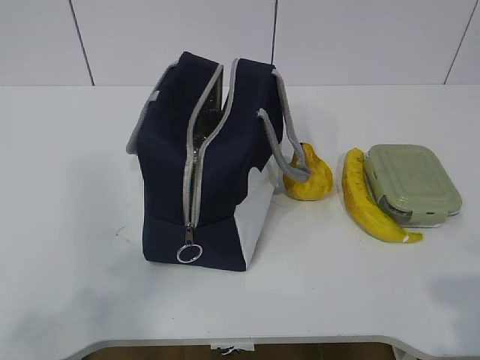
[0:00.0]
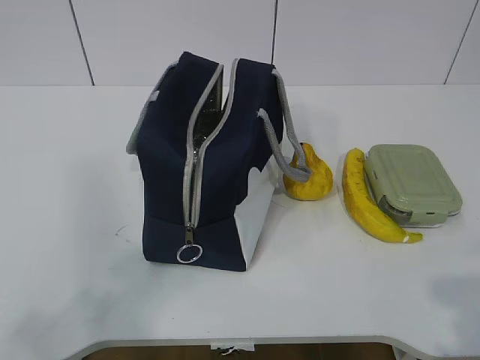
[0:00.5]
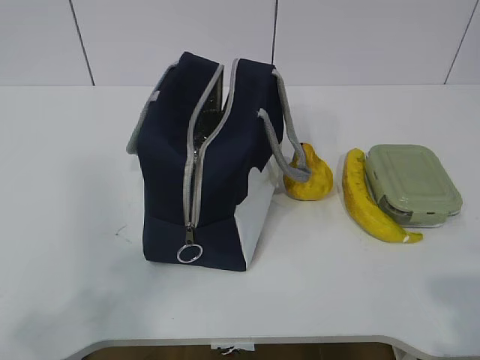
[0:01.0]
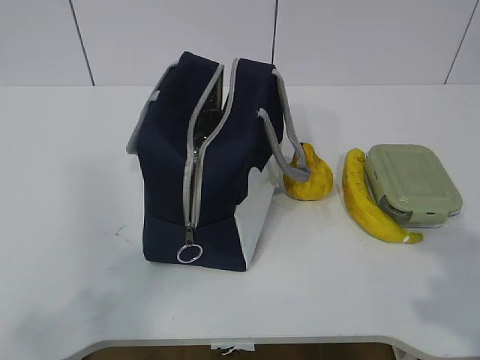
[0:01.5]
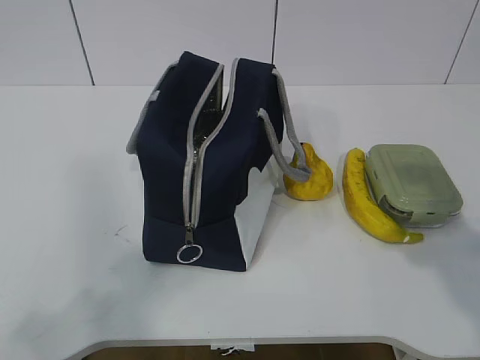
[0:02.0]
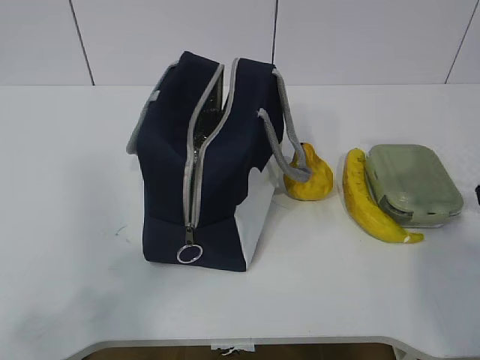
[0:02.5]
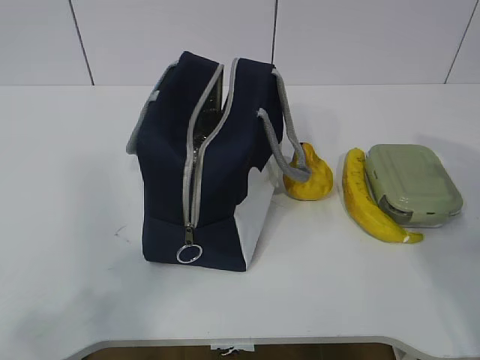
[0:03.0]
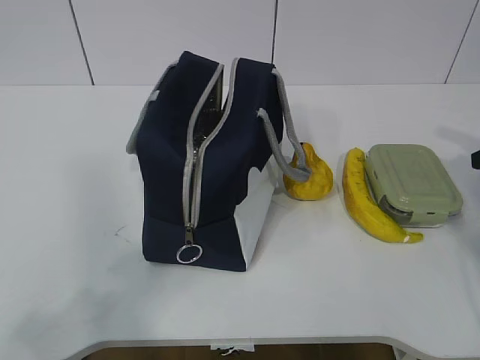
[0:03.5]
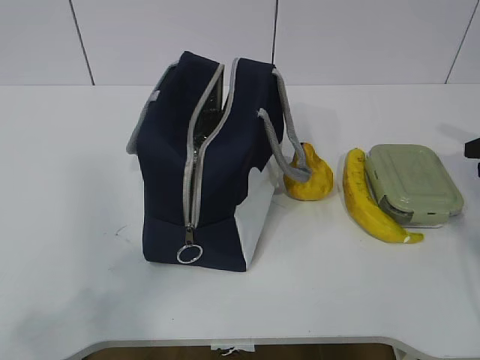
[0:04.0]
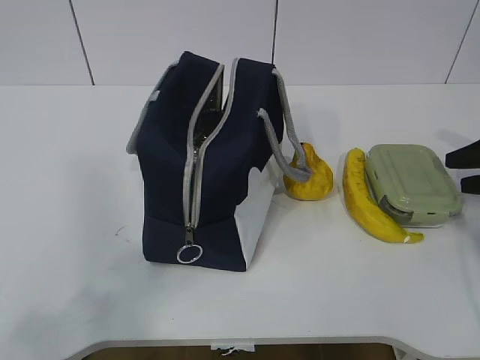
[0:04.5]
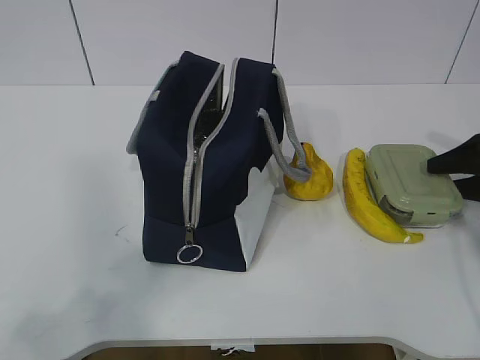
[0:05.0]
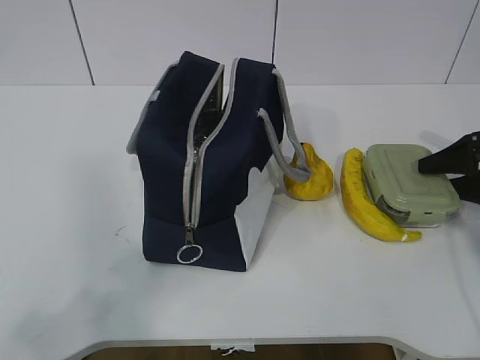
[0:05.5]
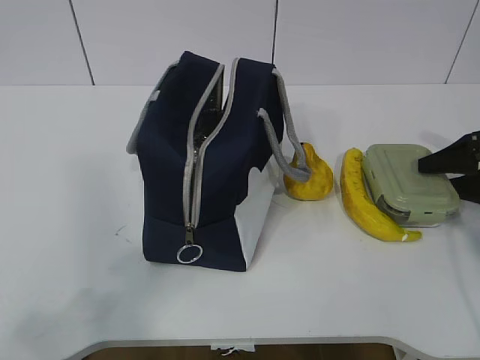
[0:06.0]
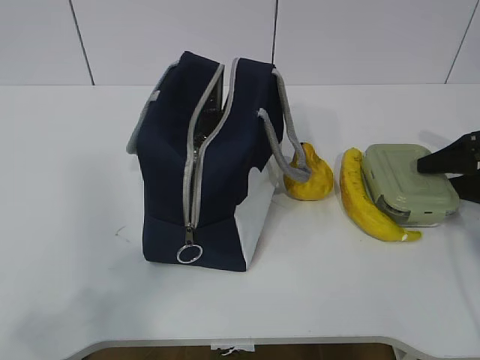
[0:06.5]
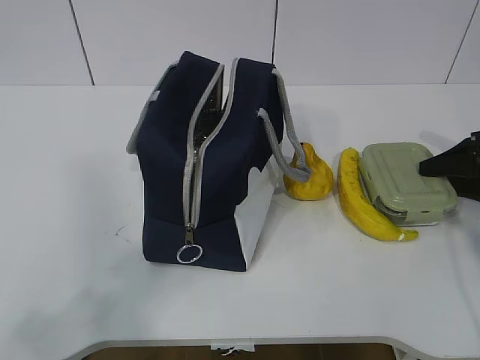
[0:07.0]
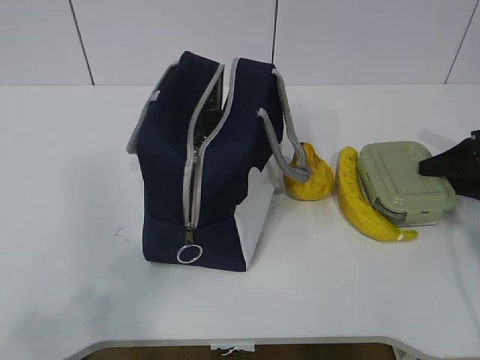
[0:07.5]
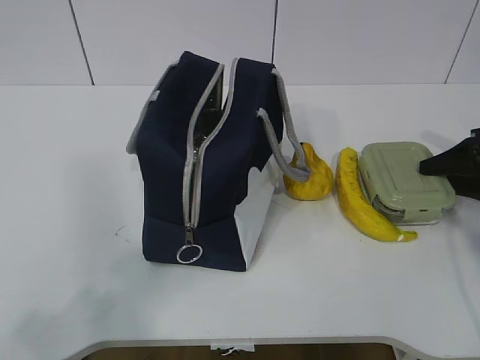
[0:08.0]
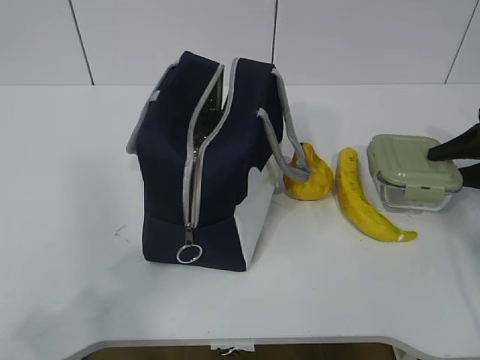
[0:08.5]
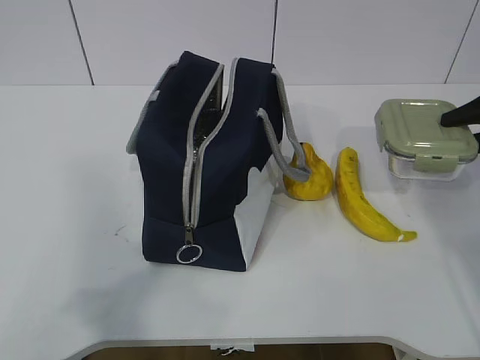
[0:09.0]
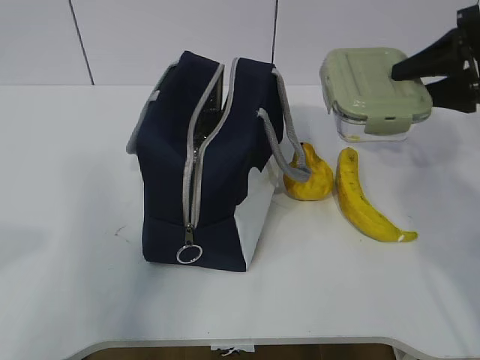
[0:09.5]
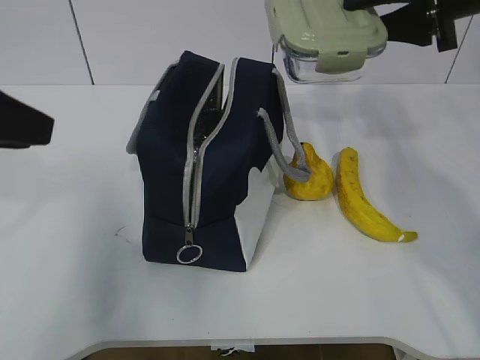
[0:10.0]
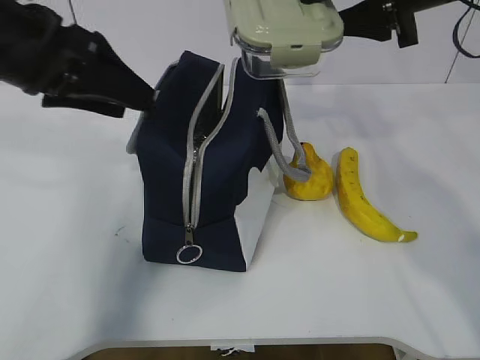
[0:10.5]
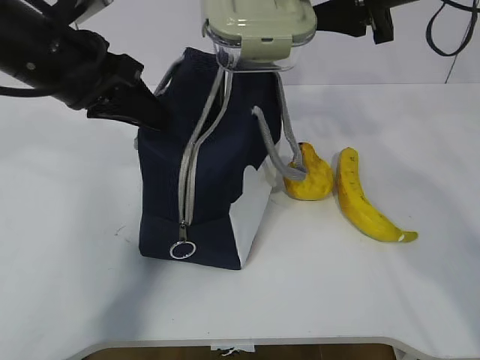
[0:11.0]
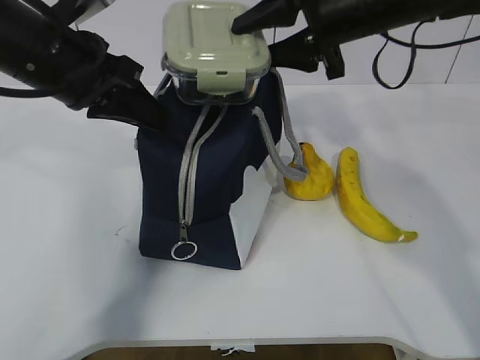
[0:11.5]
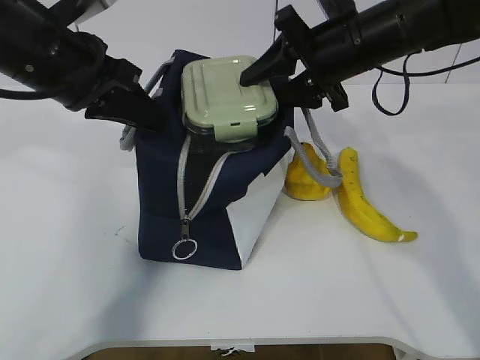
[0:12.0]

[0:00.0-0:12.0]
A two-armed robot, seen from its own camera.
Step, 0:00.0 to 0:06.5: Grab the lunch box with your right hand.
Step, 0:07.0 to 0:09.0: Grab the lunch bag with your left hand.
0:02.0 to 0:04.0: The right gripper moves forward, to the right and downward, approximately 30 cm.
0:04.0 to 0:06.0: The right gripper ends up about 5 cm from where it was.
0:06.0 to 0:08.0: Neither gripper changes place.
0:08.0 to 0:10.0: The right gripper heads upward and to the left, covering some 25 cm. The left gripper moves forward, approximately 20 cm.
0:10.0 to 0:12.0: The right gripper is displaced to the left and downward by approximately 15 cm, while the left gripper shifts approximately 15 cm forward and to the right, and closes up.

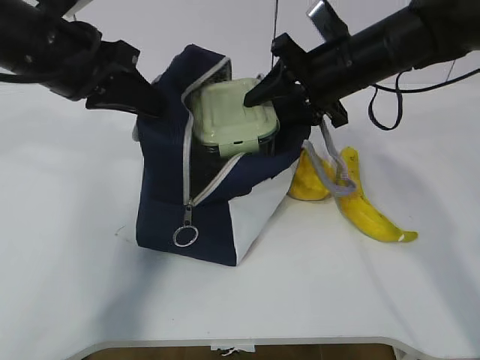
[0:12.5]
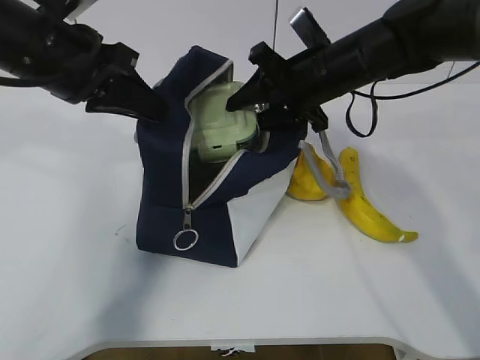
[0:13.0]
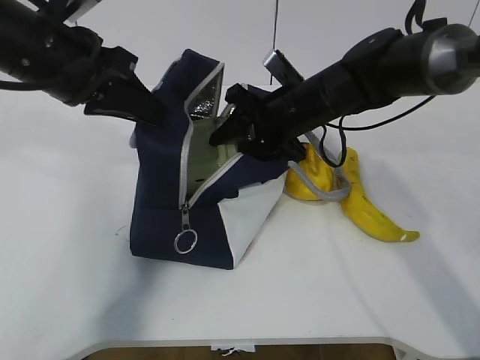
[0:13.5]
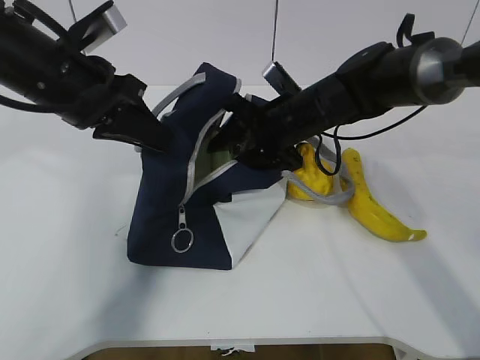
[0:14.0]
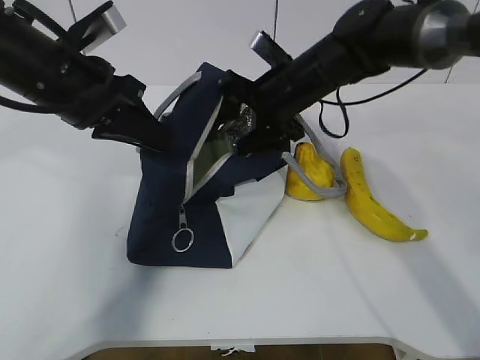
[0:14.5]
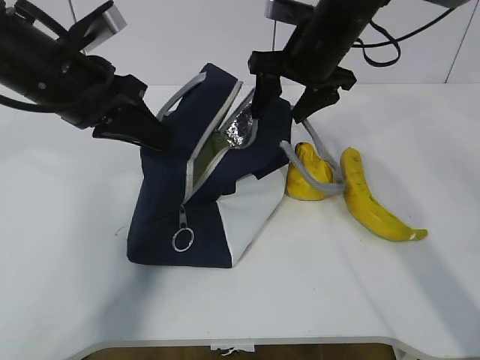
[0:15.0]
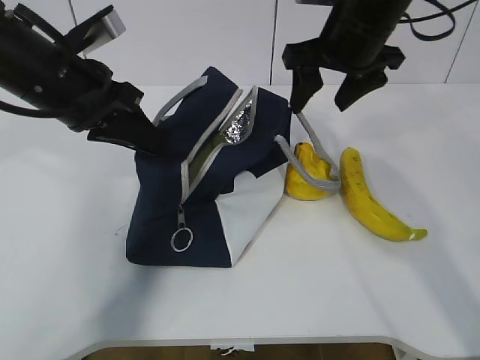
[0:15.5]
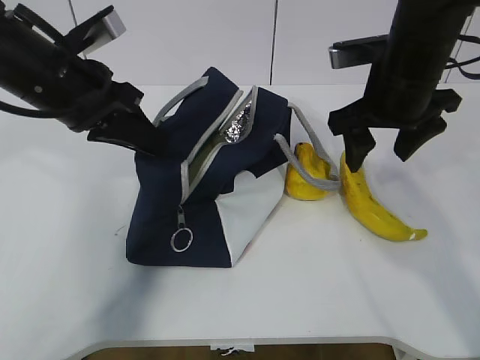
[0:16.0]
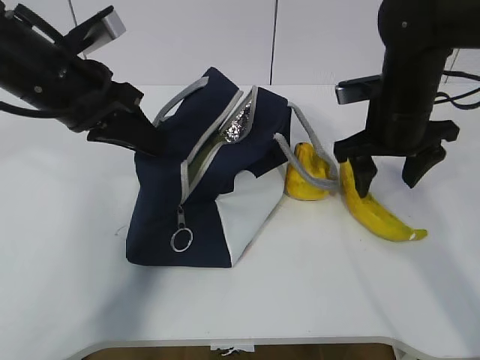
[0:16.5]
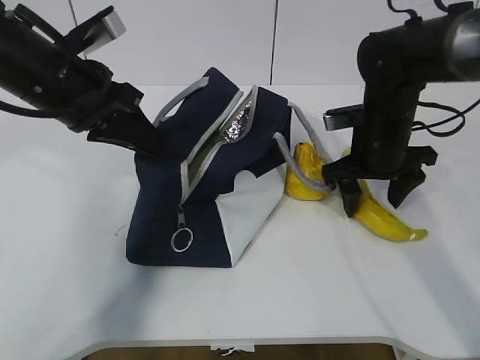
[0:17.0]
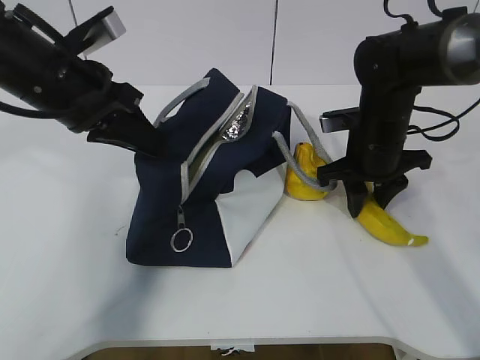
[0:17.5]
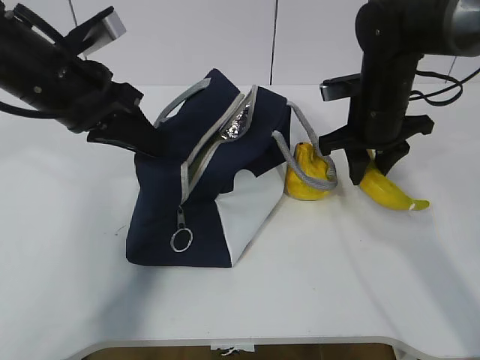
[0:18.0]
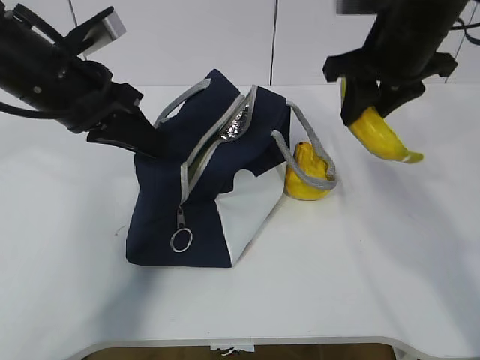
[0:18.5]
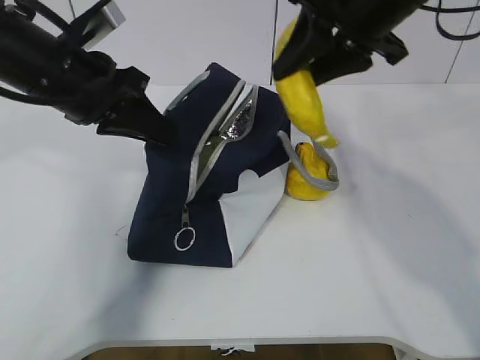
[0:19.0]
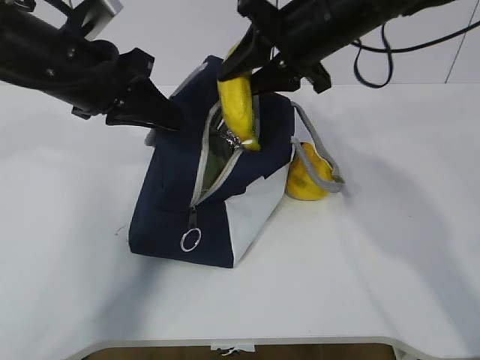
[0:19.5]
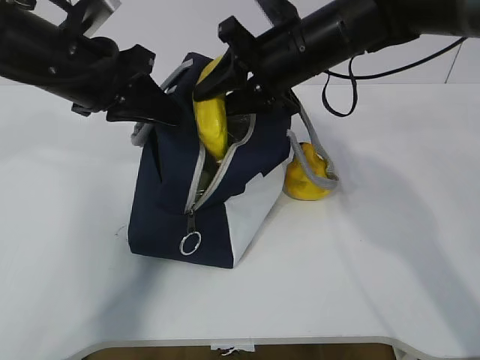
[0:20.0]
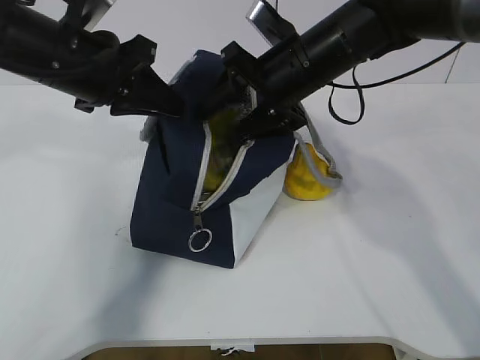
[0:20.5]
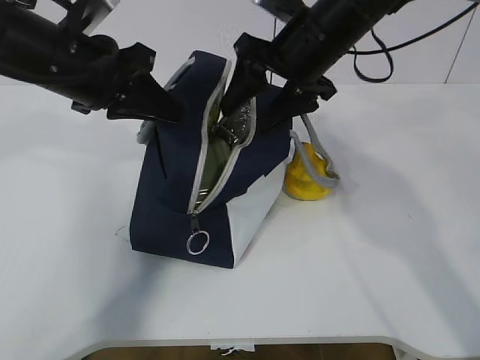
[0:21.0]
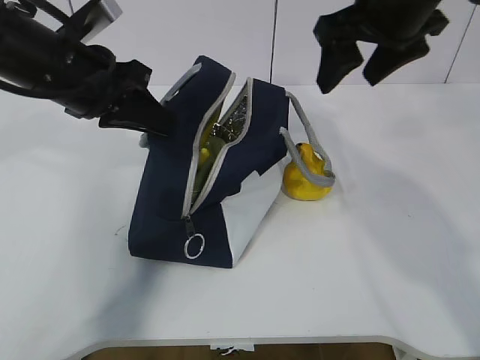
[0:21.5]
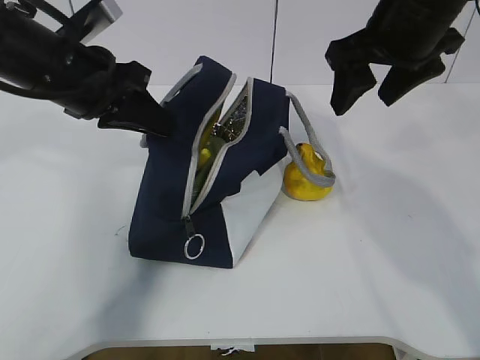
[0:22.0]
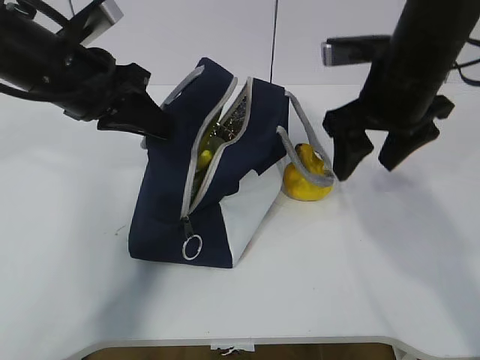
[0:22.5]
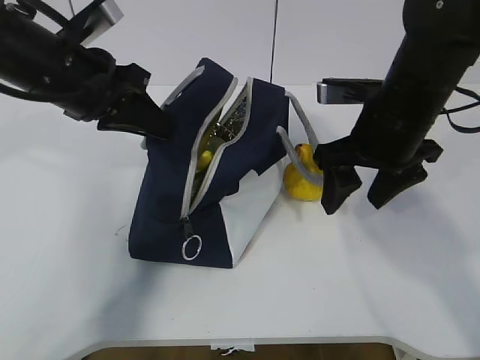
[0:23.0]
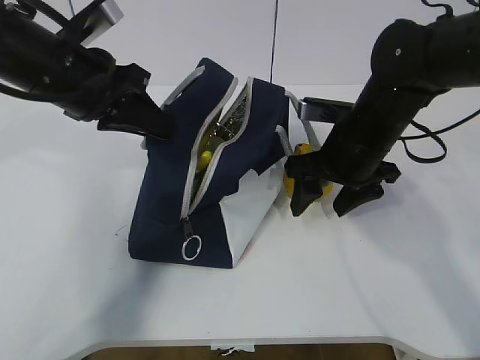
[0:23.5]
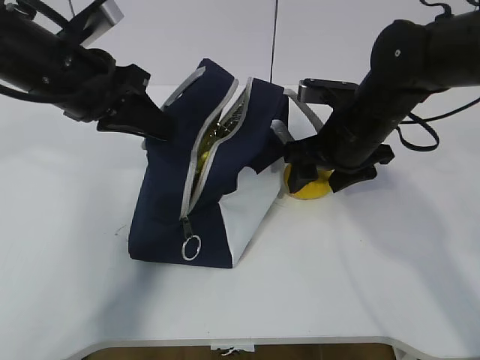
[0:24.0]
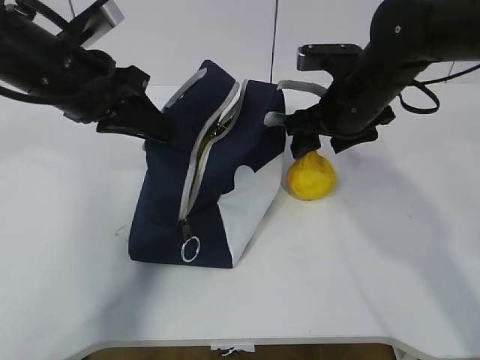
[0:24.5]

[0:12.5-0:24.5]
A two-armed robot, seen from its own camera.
Step, 0:12.5 to 0:14.5: Grab the banana with your right hand.
Step, 0:15.0 to 0:17.0: Place it into the bag with your right hand.
Step, 0:17.5 to 0:21.5: Grab the pear with your right hand.
0:12.5 to 0:14.5: The right gripper moves to the left, approximately 5 cm, and opens its fingers.
0:14.5 to 0:16.5: The right gripper shifts approximately 10 cm to the right and backward.
0:16.5 to 0:18.5: The right gripper shifts some 10 cm upward, and closes up.
0:18.5 to 0:20.5: The right gripper shifts some 10 cm to the left, and opens up.
0:20.5 to 0:22.5: The right gripper shifts approximately 10 cm to the right and backward, and moves approximately 10 cm upward and comes back.
0:22.5 to 0:24.5: The right gripper is displaced downward by approximately 5 cm.

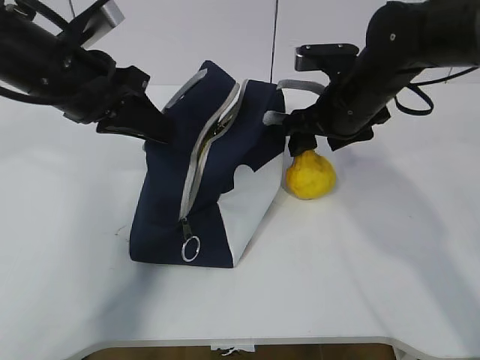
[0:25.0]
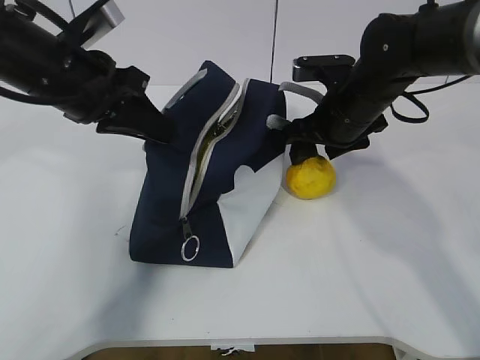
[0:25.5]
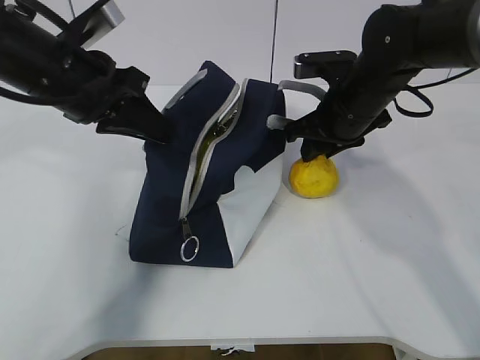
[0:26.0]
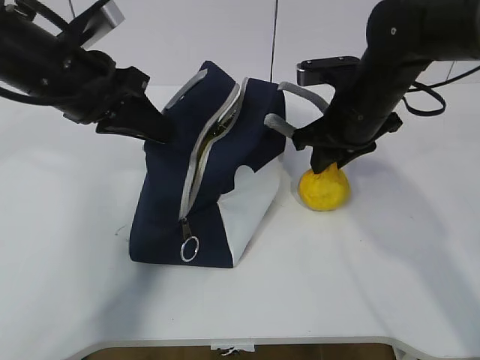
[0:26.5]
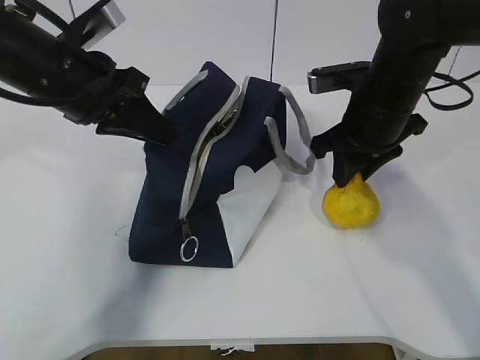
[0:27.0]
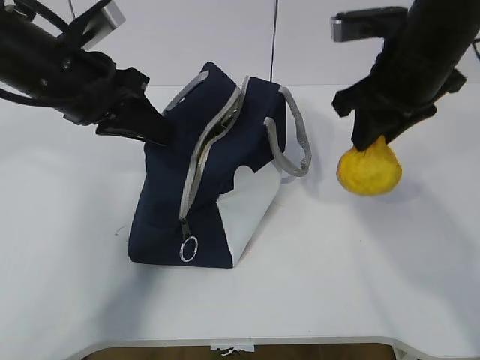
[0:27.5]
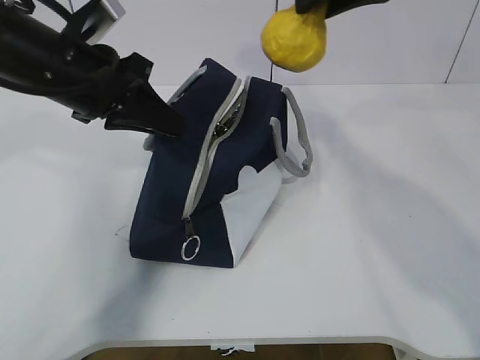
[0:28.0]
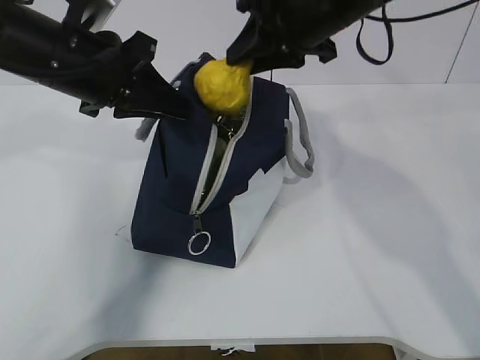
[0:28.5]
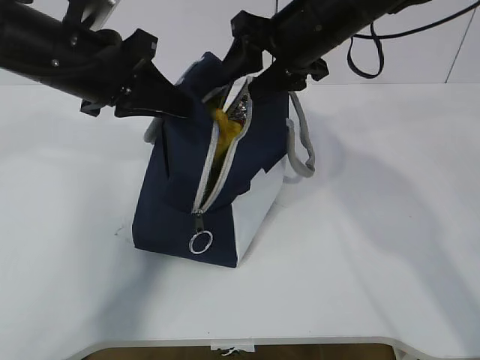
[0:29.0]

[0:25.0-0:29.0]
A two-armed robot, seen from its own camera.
Step, 0:26.0 to 0:27.0: Move the lunch bag to the right.
0:25.0 to 0:27.0: The right gripper closes.
0:27.0 to 0:29.0: The right gripper travels upward and to the left by approximately 10 cm, and opens its fingers.
